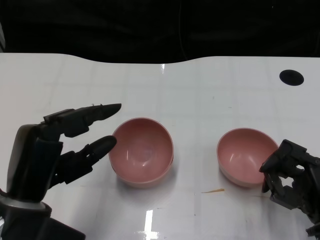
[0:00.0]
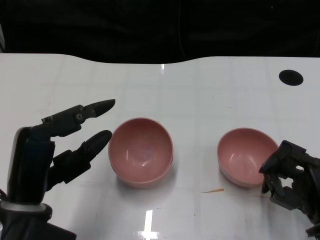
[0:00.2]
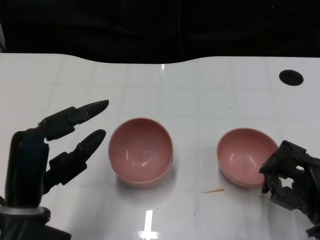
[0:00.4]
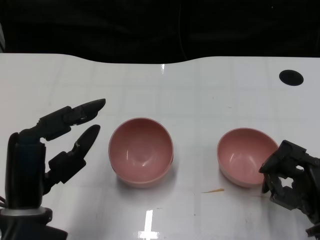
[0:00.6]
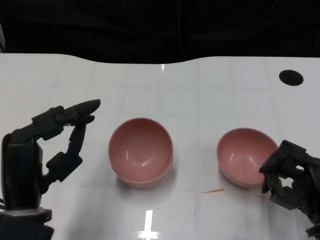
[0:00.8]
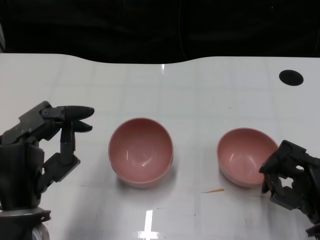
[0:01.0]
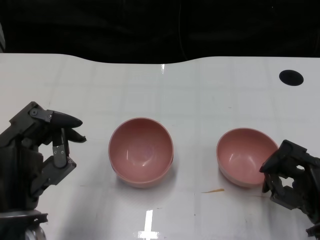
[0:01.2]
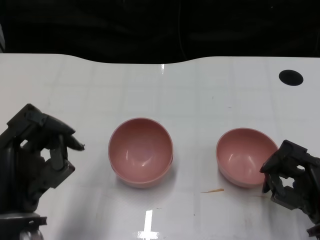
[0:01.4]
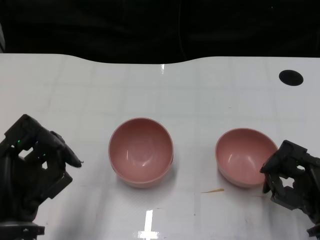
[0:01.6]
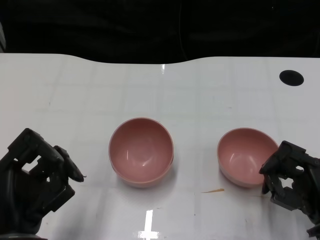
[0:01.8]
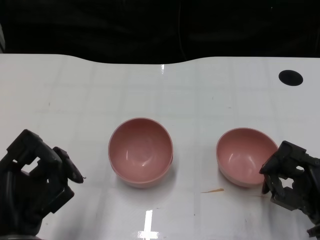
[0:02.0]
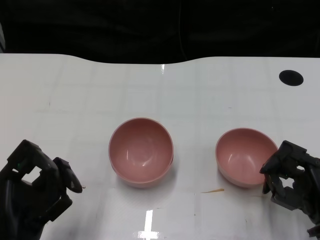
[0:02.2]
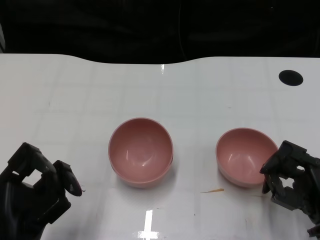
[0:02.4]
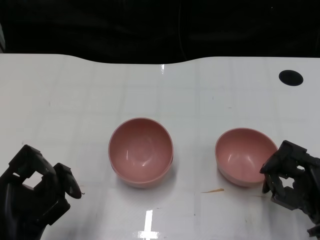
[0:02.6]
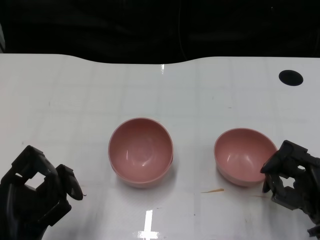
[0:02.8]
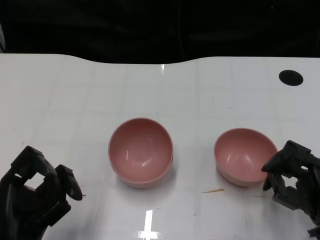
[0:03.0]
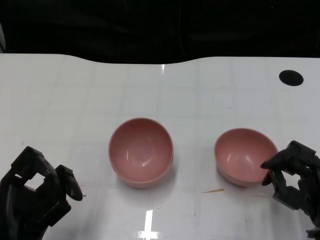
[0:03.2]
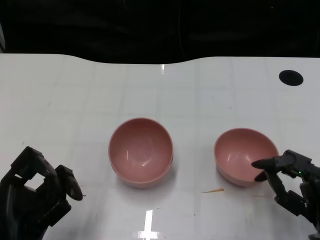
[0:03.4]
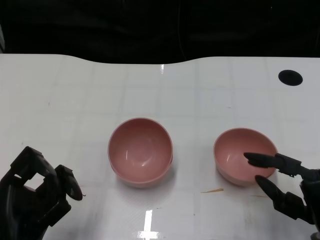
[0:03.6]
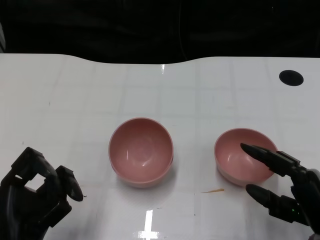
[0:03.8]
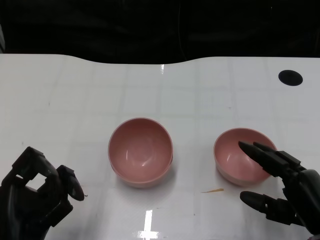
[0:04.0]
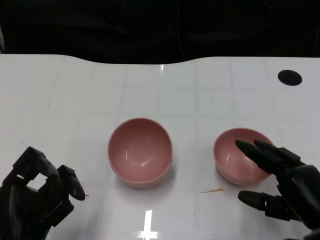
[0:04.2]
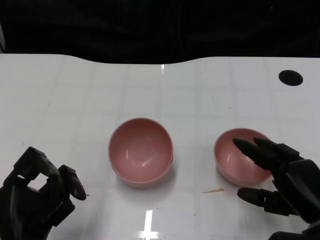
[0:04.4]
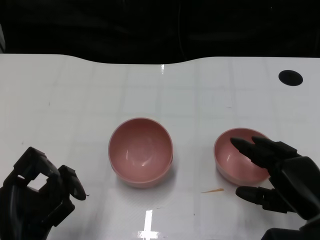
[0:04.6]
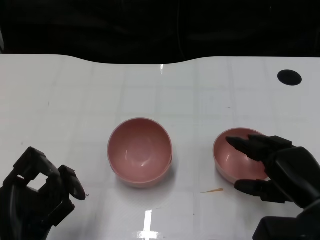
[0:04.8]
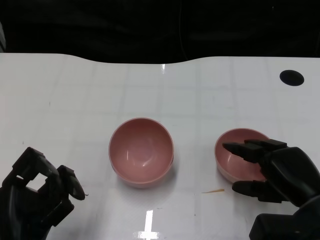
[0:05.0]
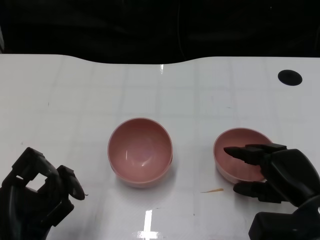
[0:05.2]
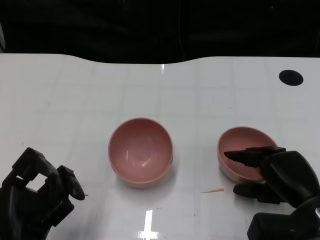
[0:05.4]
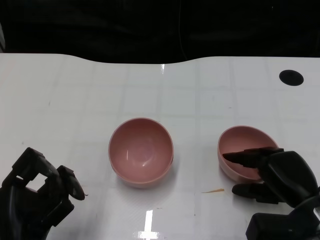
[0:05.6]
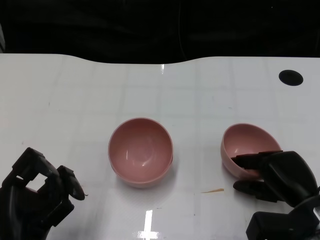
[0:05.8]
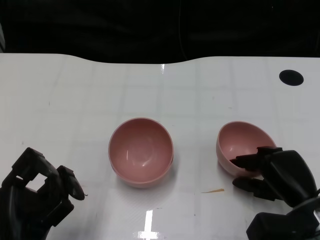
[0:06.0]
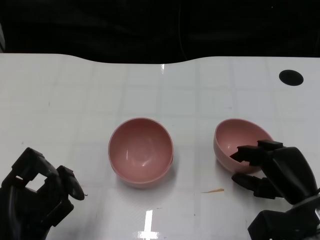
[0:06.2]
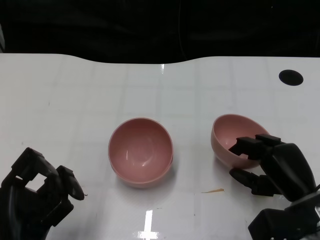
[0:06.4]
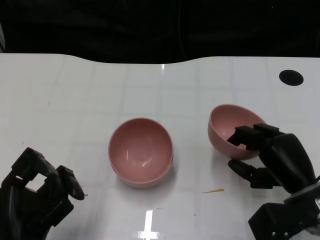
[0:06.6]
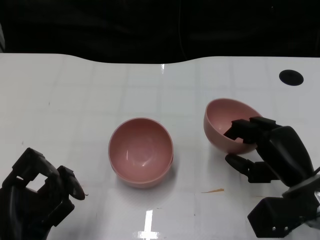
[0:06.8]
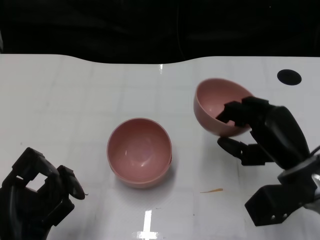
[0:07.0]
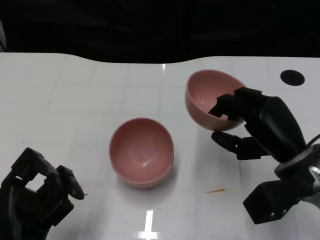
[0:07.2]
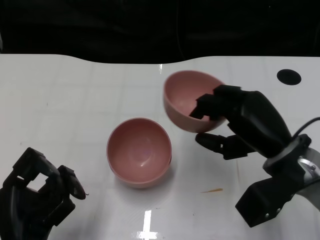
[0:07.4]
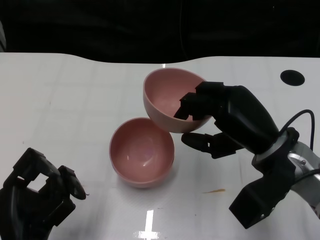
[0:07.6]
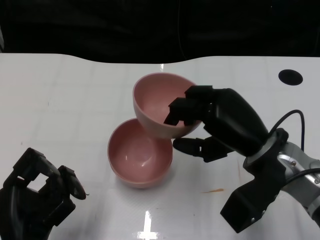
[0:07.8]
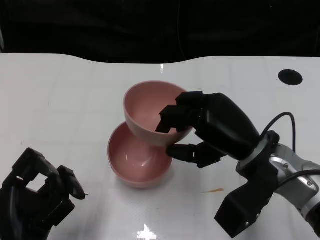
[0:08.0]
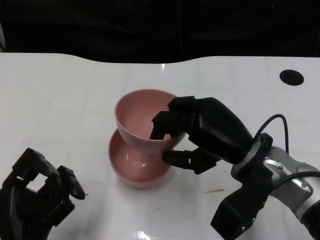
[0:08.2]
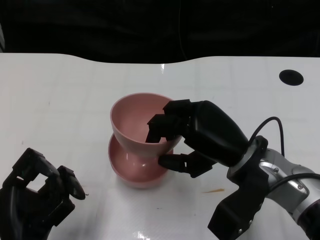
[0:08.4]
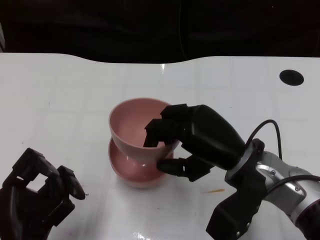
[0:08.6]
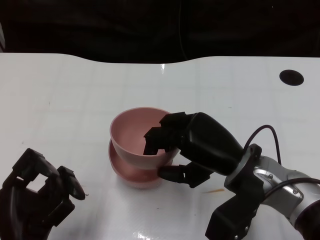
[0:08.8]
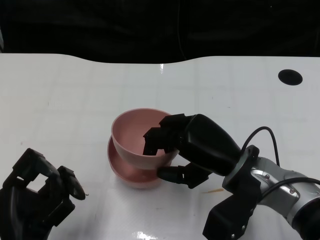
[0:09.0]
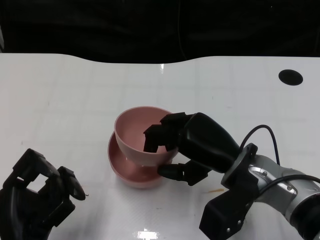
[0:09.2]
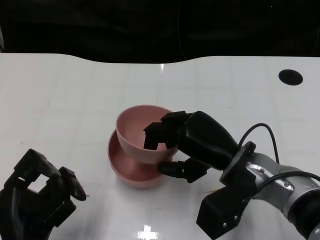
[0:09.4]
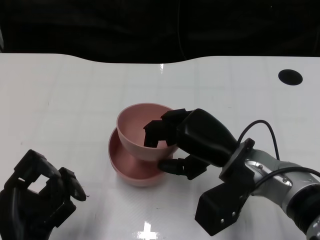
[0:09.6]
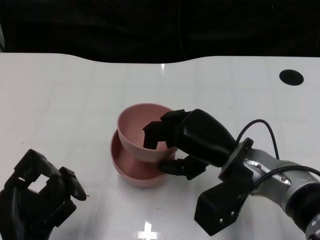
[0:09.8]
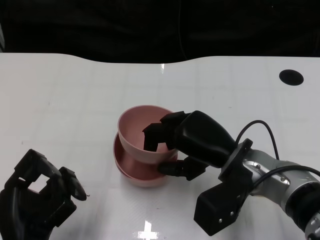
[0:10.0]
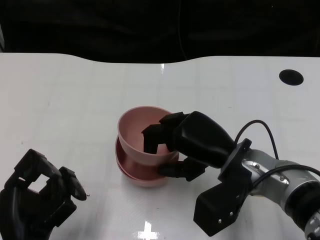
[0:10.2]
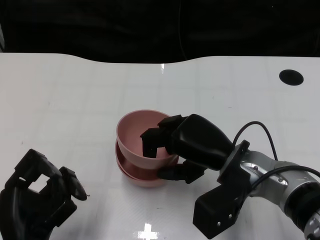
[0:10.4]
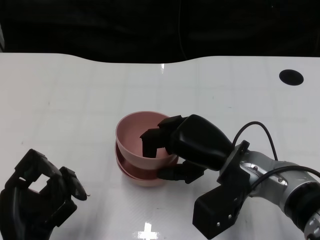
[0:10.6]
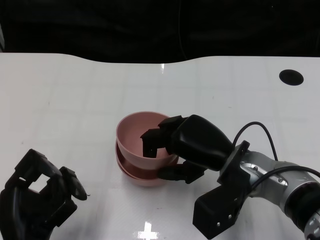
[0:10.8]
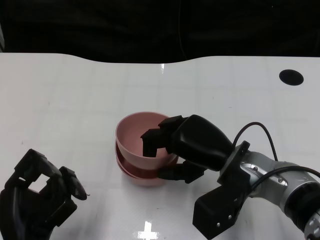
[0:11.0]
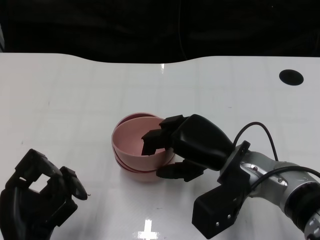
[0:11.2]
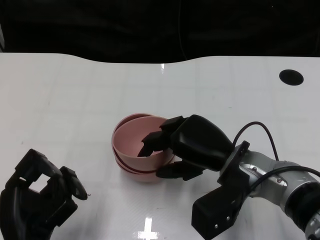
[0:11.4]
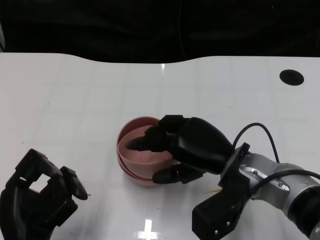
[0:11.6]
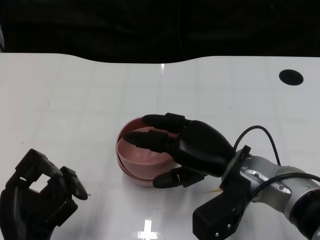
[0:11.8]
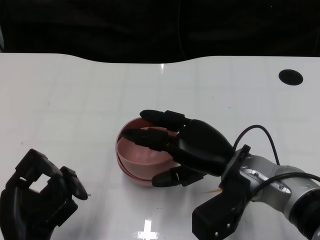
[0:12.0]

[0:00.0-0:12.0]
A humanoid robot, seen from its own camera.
Task of the whole recording: Pick up the bowl on one side of the table and place it on top of the middle bowl, then pick up the bowl on the other side of the table and place it on top of the middle bowls.
Step, 0:00.0 to 0:06.4: Grasp the bowl on the right with the right gripper.
0:01.6 to 0:03.0: There are only small adjustments of the hands.
0:04.4 to 0:06.0: The hands move only a little.
0:06.0 to 0:07.6: The right hand shifts approximately 10 cm upward and to the left.
0:09.0 to 0:12.0: The hands make only small movements.

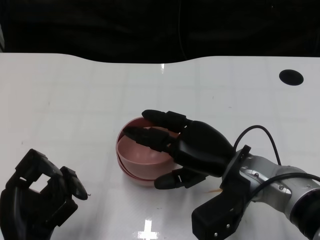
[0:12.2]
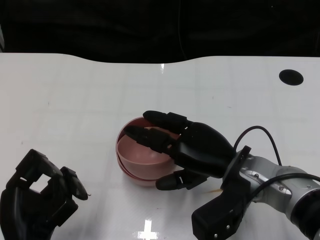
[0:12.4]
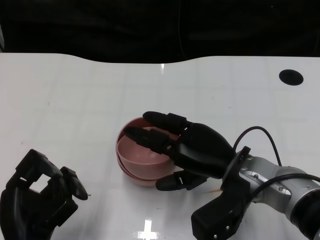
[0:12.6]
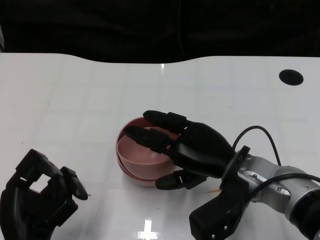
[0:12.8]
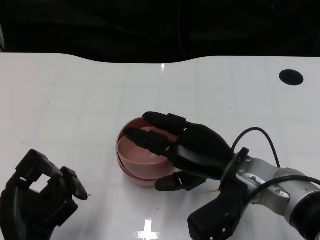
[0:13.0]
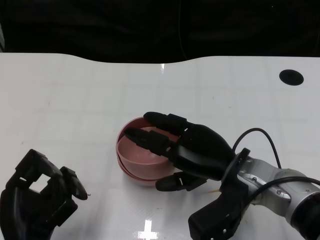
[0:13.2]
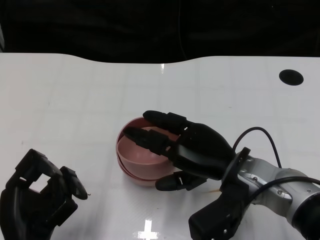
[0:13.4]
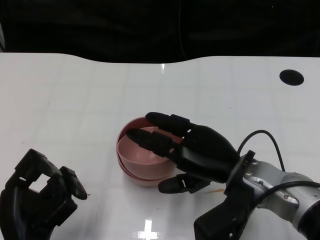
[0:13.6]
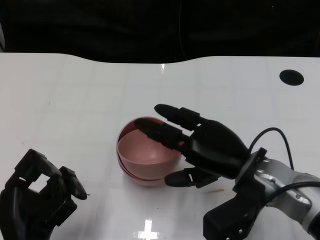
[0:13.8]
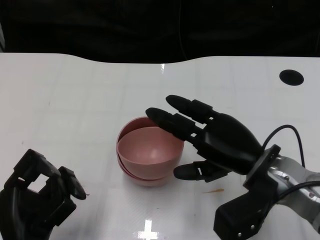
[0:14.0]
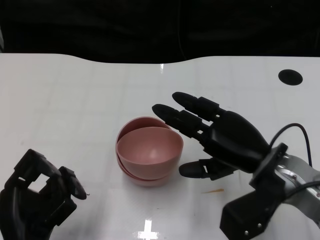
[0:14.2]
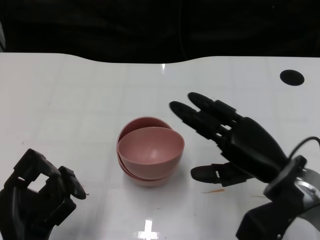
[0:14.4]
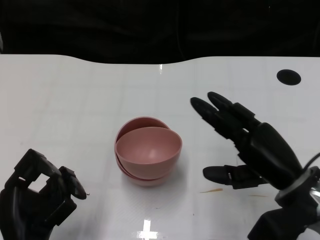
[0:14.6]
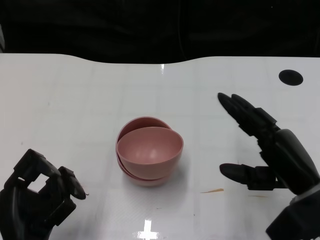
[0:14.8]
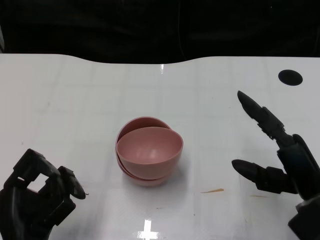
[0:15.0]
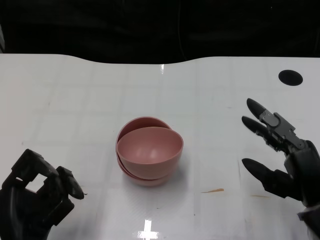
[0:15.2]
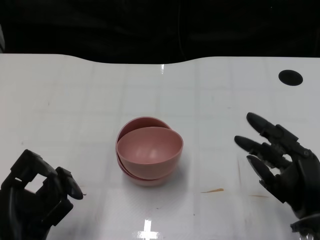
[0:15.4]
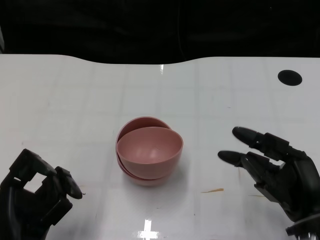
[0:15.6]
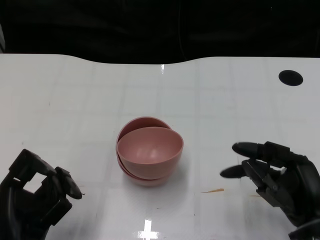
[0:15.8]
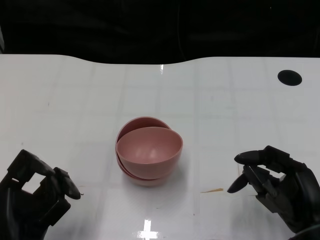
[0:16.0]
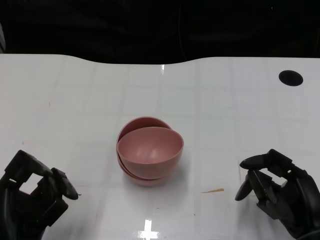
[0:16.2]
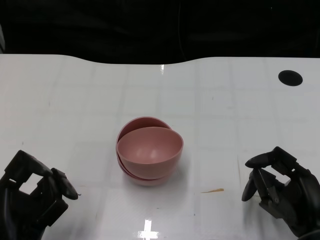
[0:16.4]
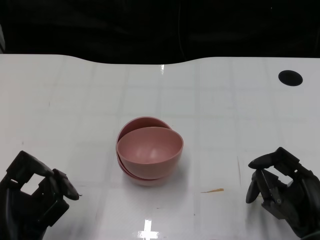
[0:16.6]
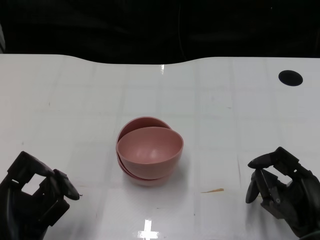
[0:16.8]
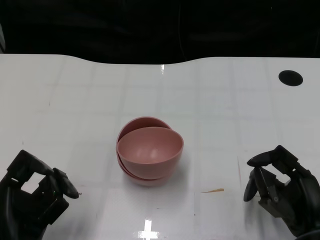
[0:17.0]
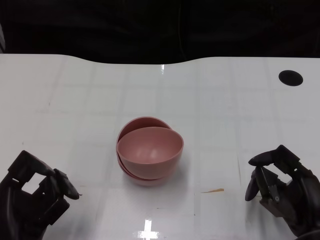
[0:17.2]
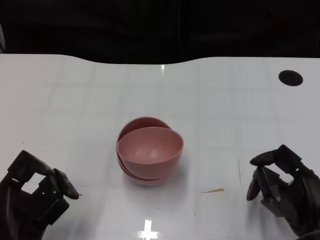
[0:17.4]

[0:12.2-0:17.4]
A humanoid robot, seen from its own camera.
Task of the whole recording: Pick up the bowl on one side of the table and place it on top of the middle bowl, then pick up the bowl on the other side of the table and place it on top of the middle bowls.
0:12.2 to 0:14.0: There are only small adjustments of the hands.
0:14.0 to 0:15.6: The right hand travels backward, to the right and downward by approximately 10 cm.
0:15.6 to 0:17.4: The hands move only a little.
